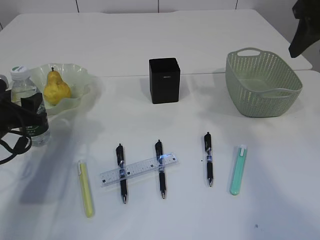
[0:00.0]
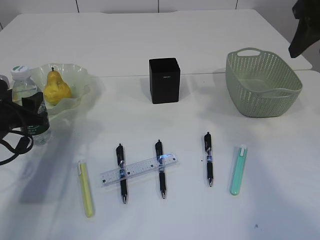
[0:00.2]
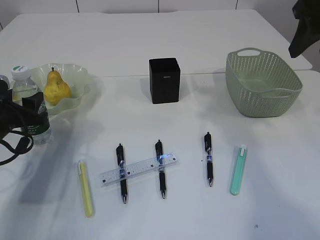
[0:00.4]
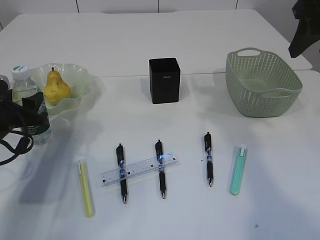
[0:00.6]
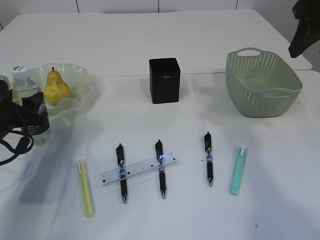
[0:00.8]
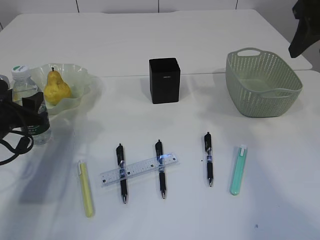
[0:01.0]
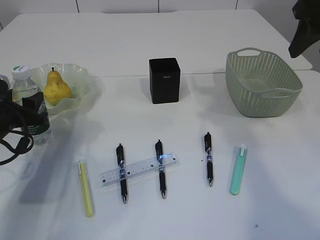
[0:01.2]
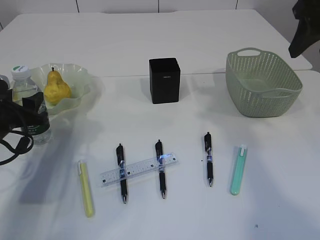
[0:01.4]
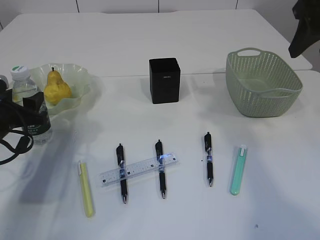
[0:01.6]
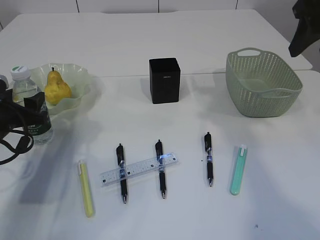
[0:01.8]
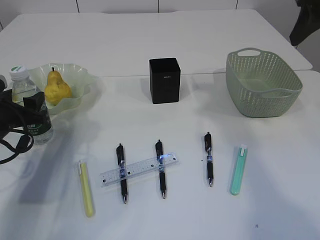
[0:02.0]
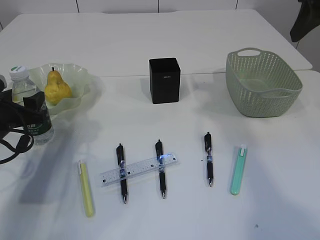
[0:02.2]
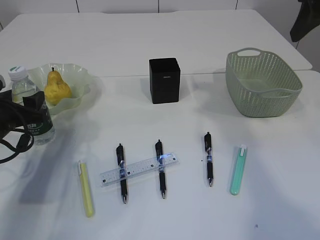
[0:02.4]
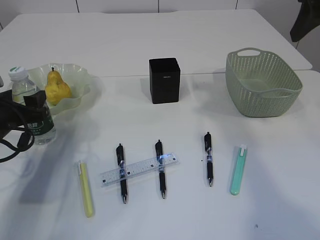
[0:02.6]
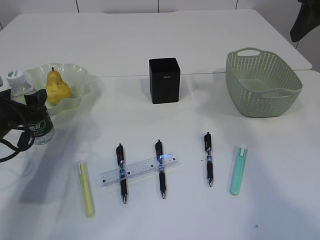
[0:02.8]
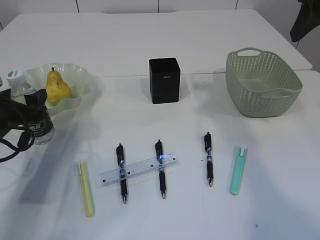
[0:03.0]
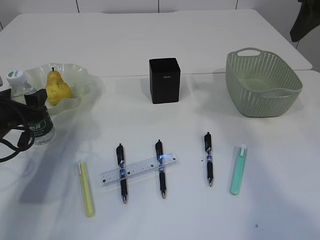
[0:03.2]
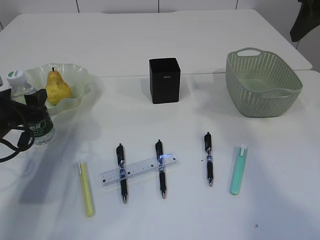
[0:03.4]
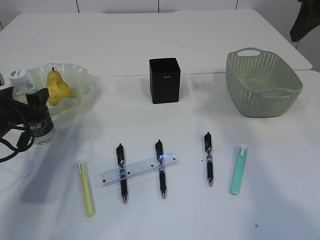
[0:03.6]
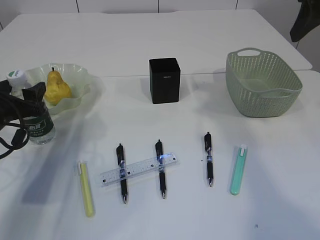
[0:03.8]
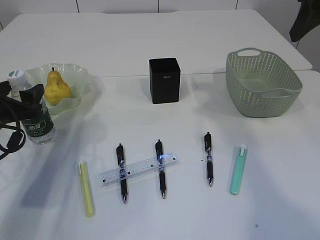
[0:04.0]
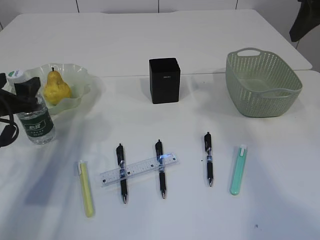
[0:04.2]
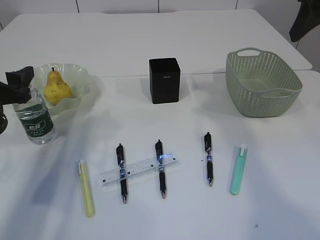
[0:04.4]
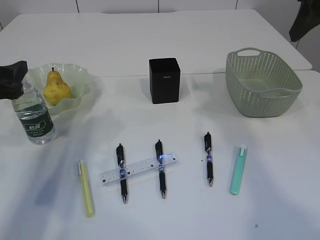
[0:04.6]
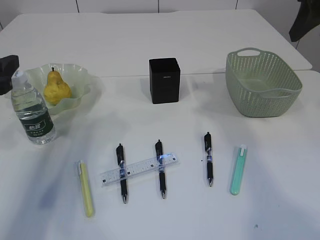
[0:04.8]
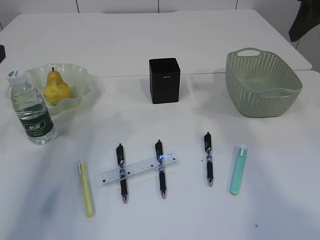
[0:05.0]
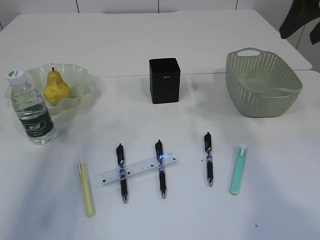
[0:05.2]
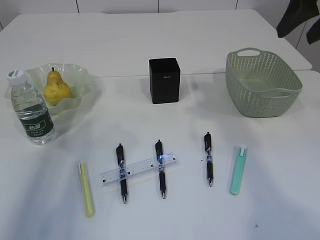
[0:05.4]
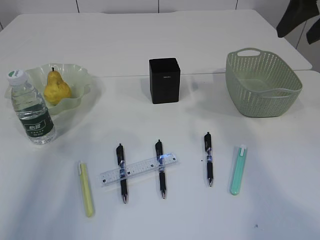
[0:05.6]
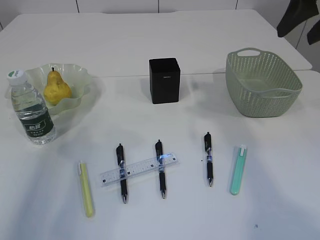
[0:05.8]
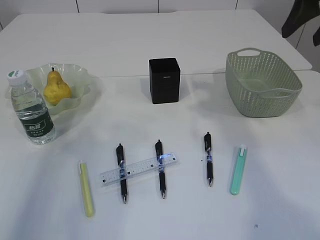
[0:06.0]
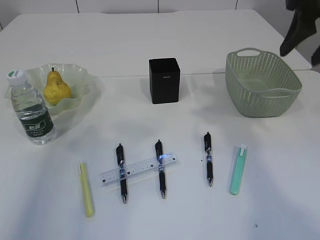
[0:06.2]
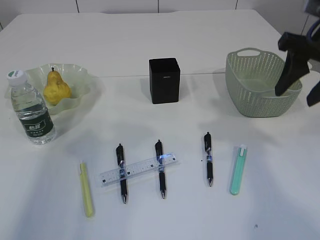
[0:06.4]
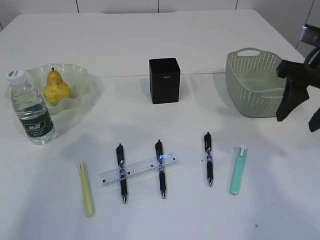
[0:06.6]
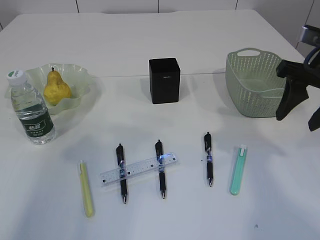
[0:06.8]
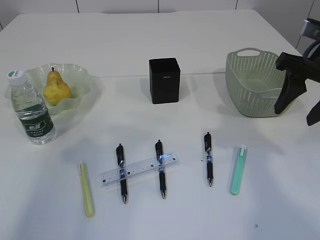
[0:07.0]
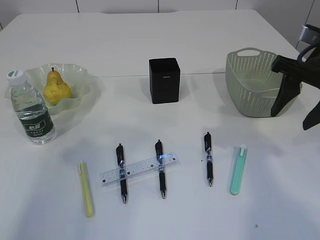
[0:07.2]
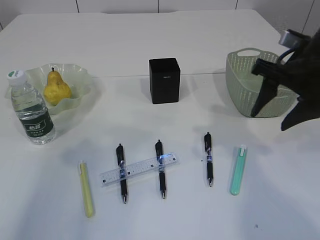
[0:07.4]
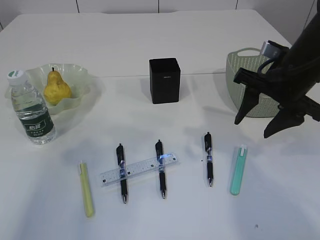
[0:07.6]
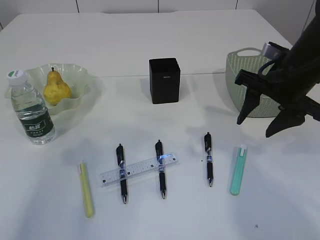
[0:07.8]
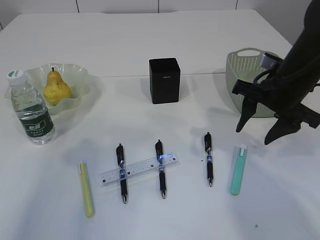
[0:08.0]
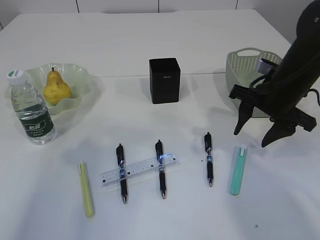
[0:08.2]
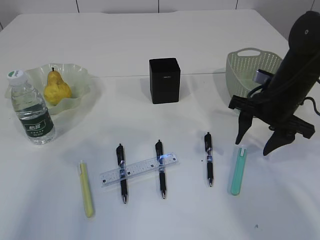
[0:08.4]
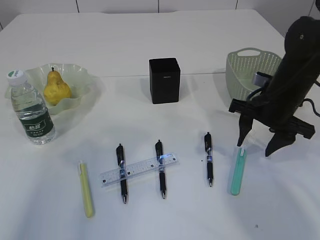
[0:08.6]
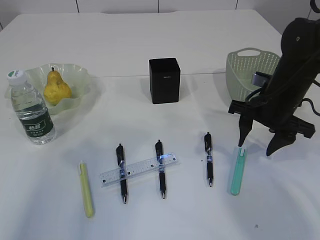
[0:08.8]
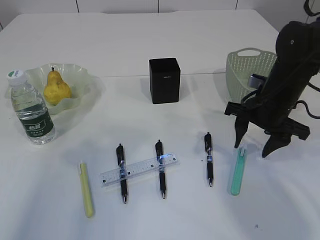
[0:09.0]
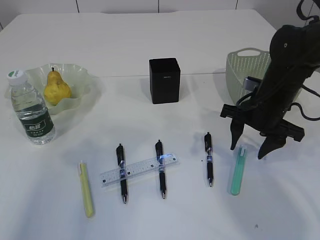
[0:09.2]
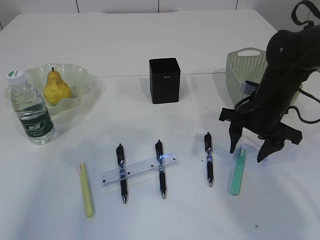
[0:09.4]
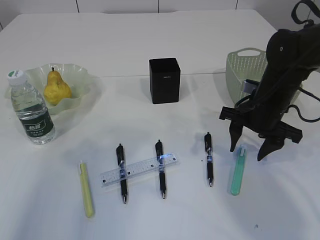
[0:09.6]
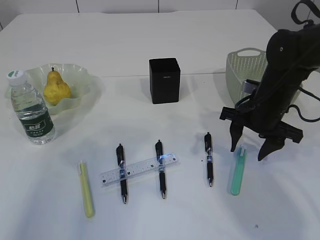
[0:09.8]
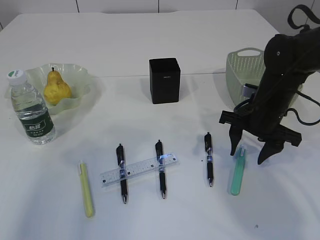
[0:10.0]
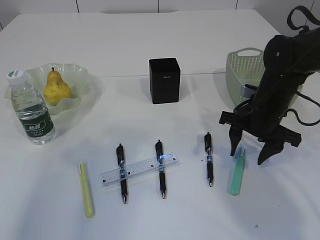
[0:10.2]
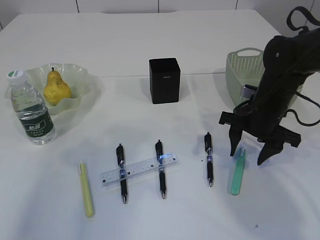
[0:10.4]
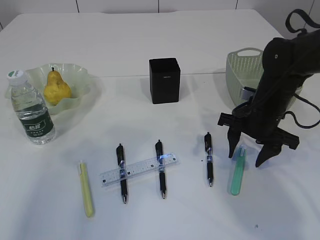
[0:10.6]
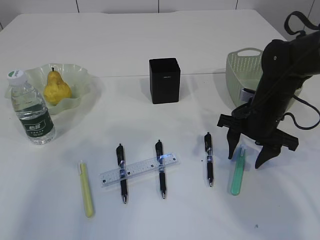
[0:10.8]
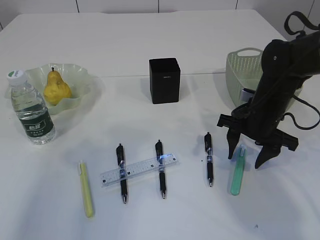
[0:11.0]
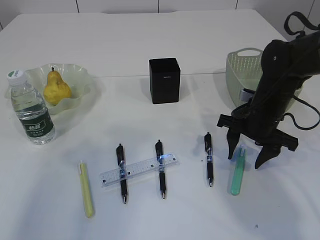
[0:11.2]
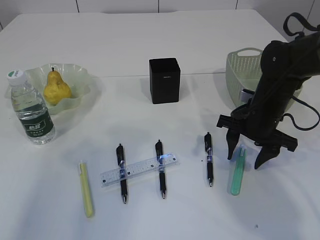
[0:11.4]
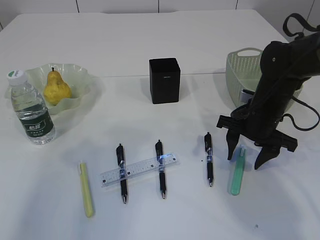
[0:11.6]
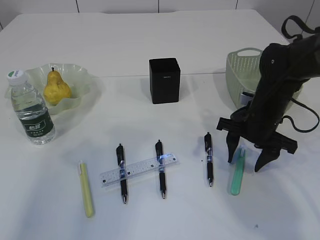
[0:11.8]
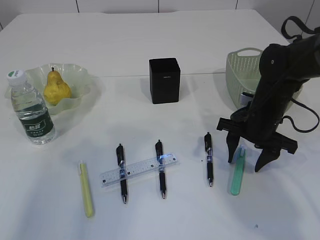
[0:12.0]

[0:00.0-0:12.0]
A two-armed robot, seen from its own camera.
Step, 0:00.0 to 0:04.8: Place the bottle.
0:00.0 to 0:01.6: Both grippers stay put.
0:01.6 to 0:03.0: The grippers stay close to where they were, moving slightly.
0:03.0 to 0:04.4: The left gripper travels upward by roughly 5 cm.
0:04.4 to 0:06.0: The left gripper heads upward and backward, covering some 20 cm.
0:06.0 to 0:07.6: The right gripper heads downward, covering roughly 15 cm.
0:07.6 to 0:09.0: The right gripper moves downward, approximately 5 cm.
0:09.0 to 0:10.4: The grippers make only small movements.
0:10.4 to 0:12.0: The two grippers keep their place.

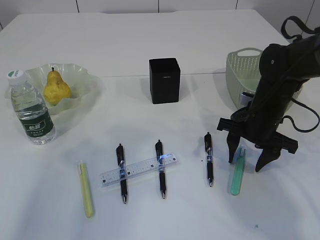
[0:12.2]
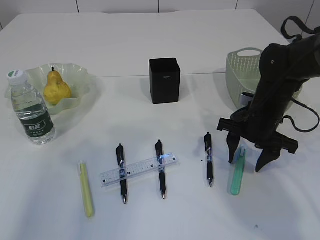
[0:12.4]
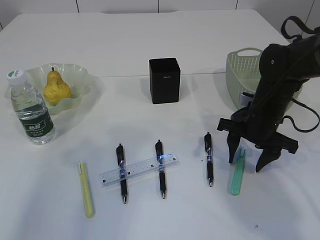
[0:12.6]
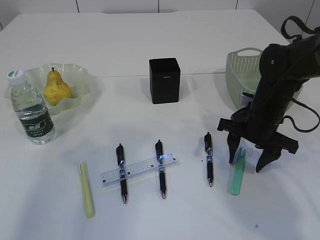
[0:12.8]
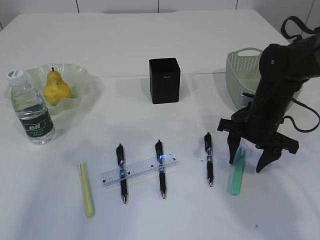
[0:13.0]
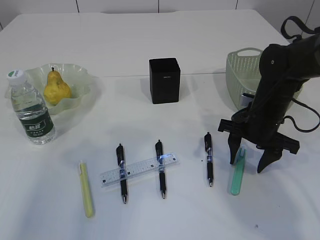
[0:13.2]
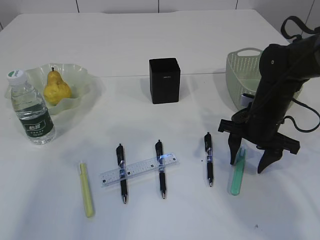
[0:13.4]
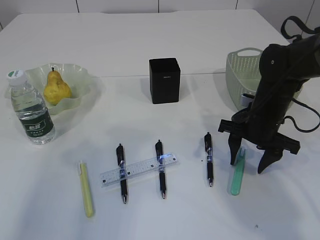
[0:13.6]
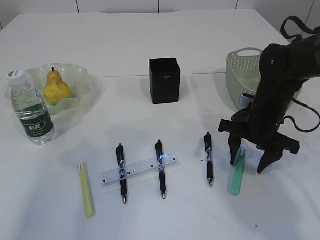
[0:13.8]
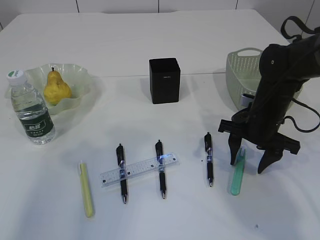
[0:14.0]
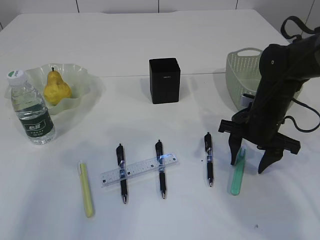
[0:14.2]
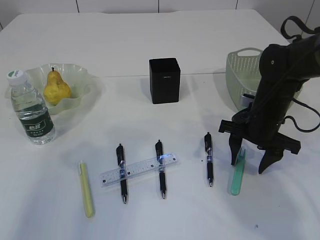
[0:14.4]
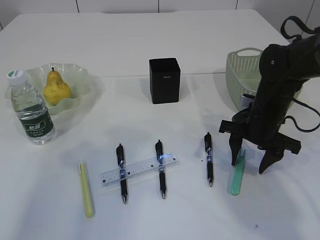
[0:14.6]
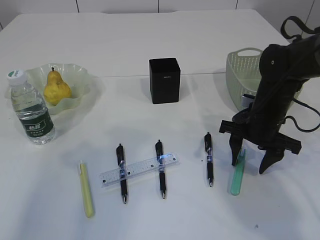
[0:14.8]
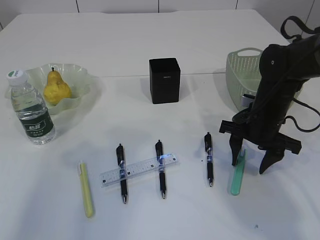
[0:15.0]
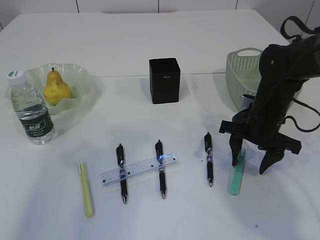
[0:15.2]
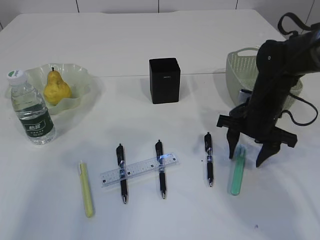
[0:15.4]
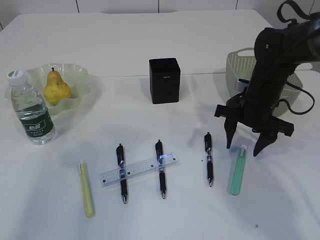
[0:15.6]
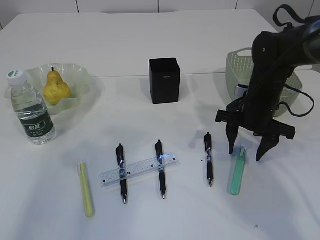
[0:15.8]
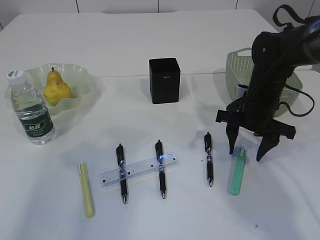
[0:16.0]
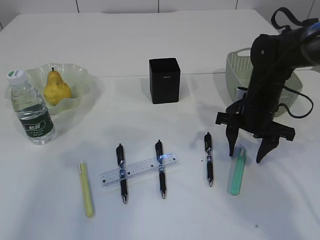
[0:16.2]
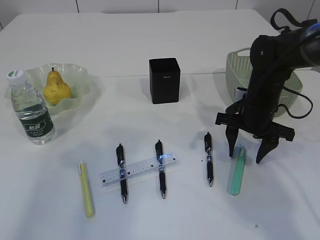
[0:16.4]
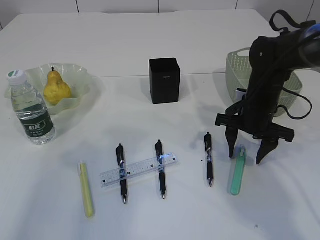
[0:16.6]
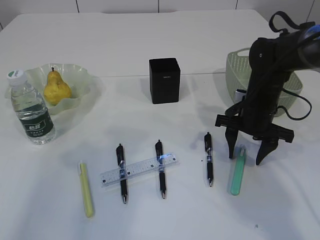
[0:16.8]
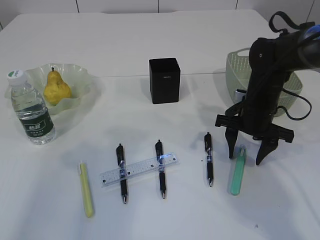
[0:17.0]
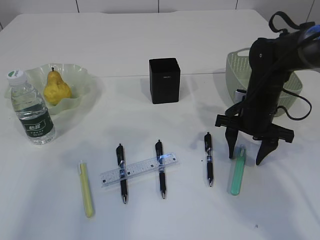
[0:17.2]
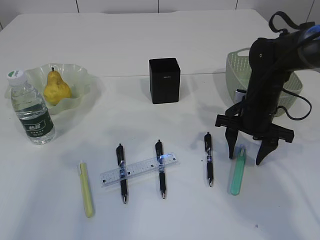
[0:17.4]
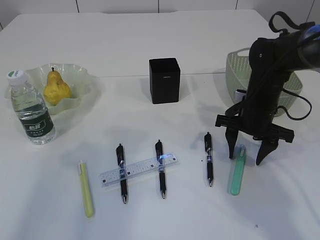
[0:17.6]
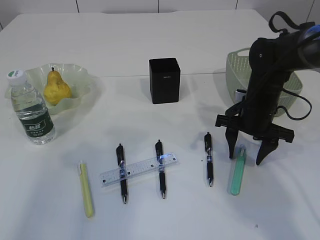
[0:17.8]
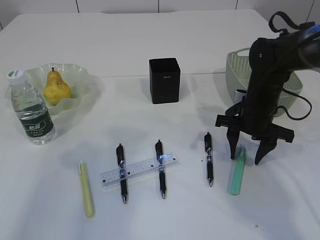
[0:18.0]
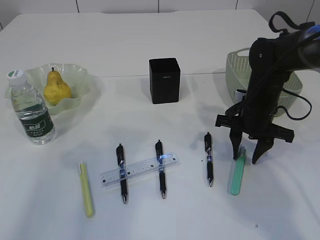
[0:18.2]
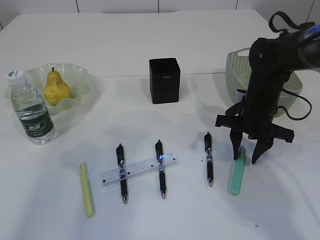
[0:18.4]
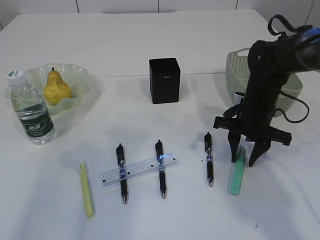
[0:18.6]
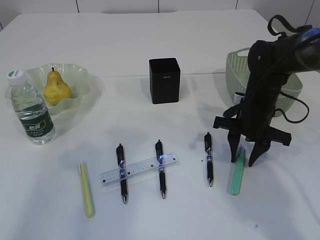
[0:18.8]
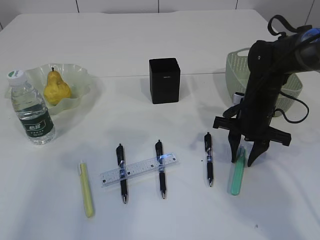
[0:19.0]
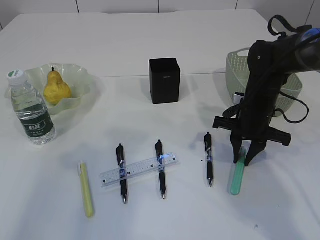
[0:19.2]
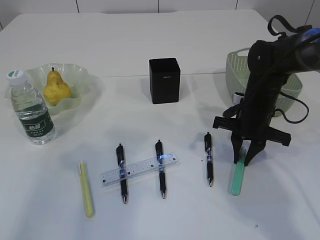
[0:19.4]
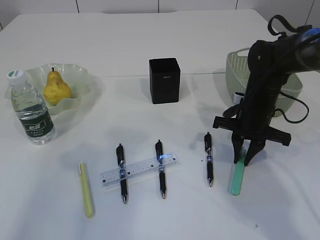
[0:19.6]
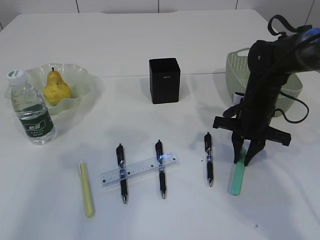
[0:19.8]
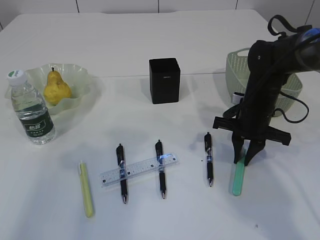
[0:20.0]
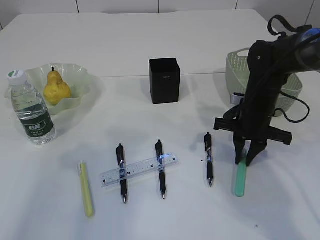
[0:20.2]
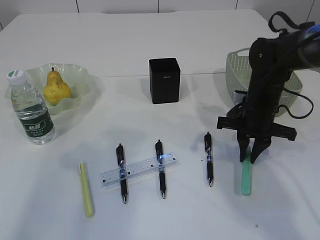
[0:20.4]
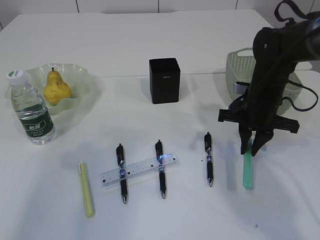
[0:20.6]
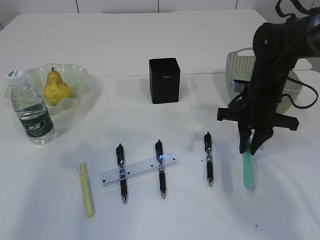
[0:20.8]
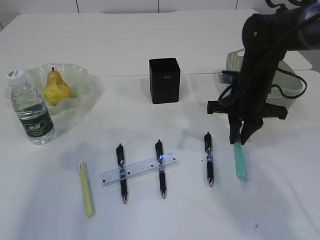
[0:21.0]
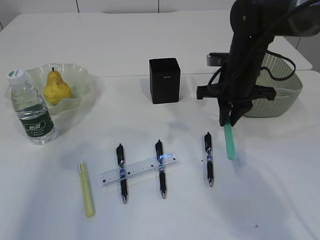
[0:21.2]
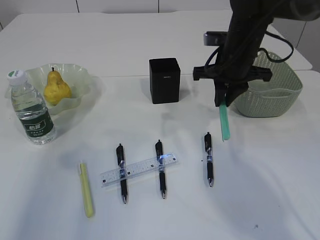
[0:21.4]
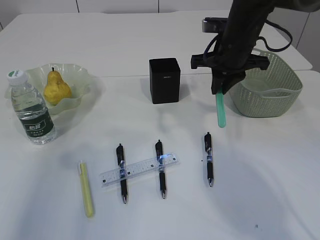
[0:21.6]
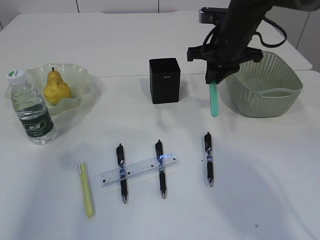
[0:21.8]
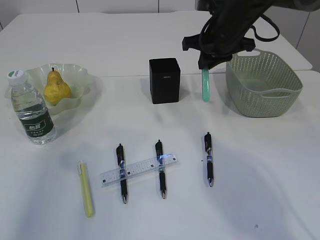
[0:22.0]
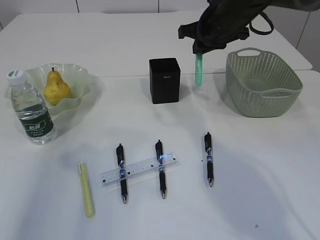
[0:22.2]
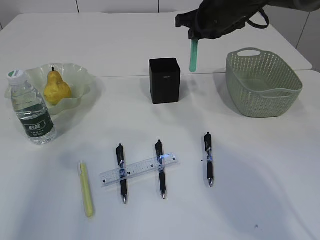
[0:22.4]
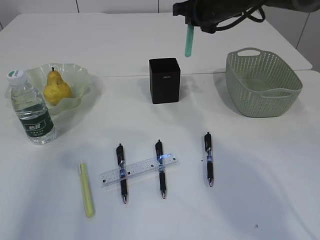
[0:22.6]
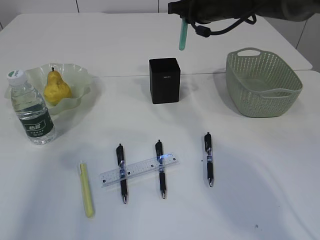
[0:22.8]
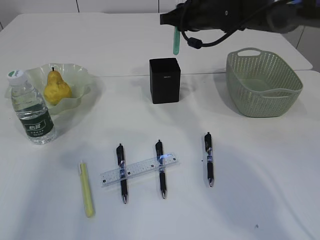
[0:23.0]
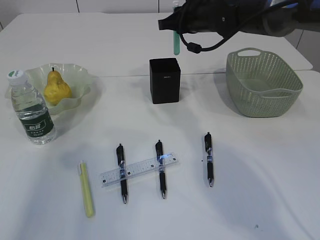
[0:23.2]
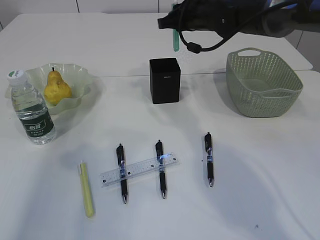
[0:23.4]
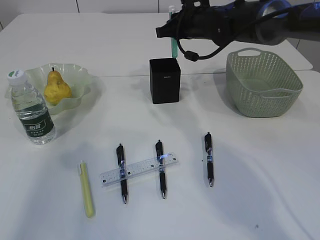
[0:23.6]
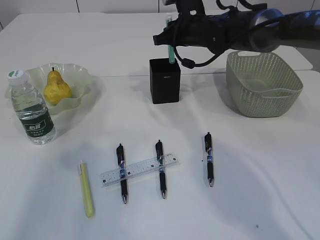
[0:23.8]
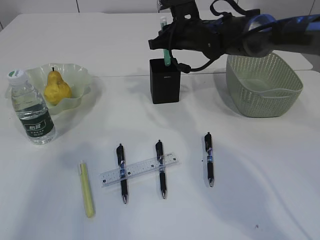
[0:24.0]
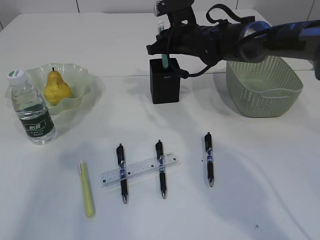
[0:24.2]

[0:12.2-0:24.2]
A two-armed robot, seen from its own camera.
Step, 0:12.2 to 0:21.0: pick up the blue knife.
0:12.2 to 0:15.2: The two grippers keep their place.
0:15.2 to 0:16.6: The grippers make only small movements.
0:16.6 to 0:18.2: The two grippers keep their place.
0:18.2 to 0:19.8: The right gripper closes up.
0:19.8 to 0:21.2: The right gripper goes some 5 cm upward.
0:21.2 to 0:22.6: The right gripper heads upward and forward, covering some 10 cm.
0:22.6 to 0:24.2: The right gripper shifts approximately 10 cm downward.
